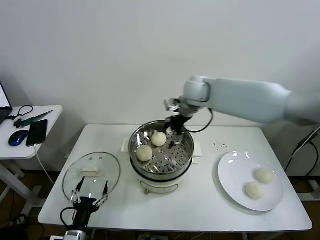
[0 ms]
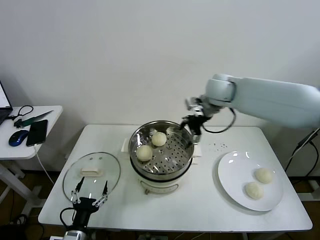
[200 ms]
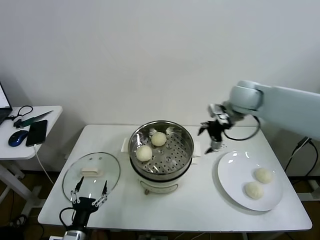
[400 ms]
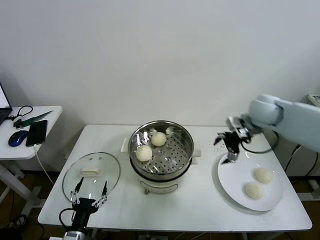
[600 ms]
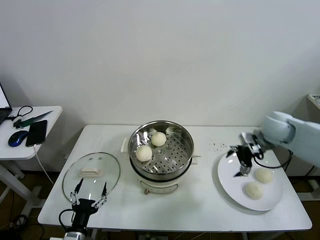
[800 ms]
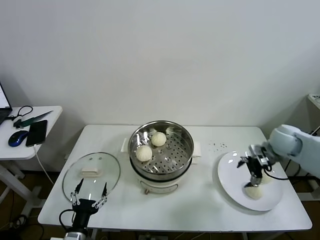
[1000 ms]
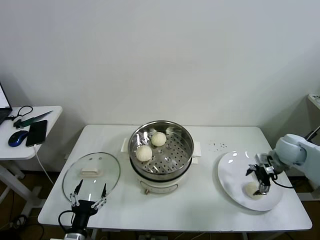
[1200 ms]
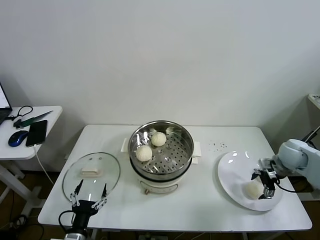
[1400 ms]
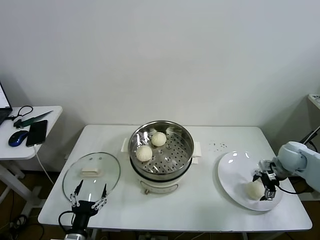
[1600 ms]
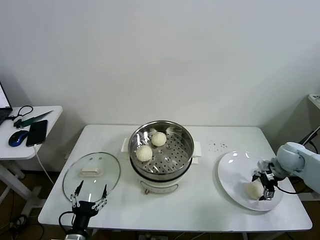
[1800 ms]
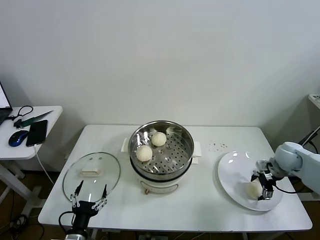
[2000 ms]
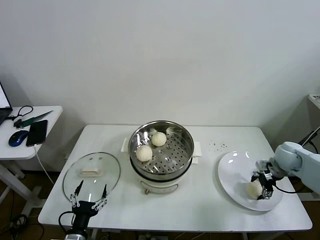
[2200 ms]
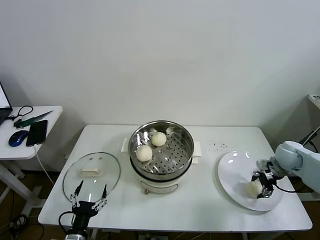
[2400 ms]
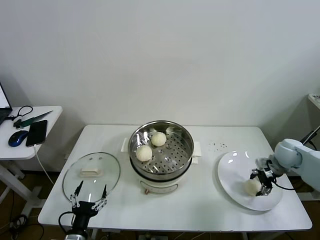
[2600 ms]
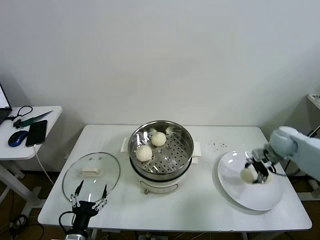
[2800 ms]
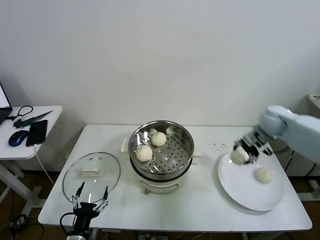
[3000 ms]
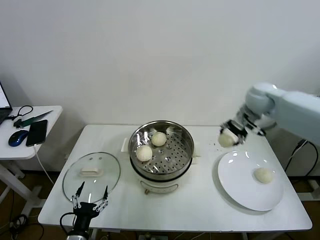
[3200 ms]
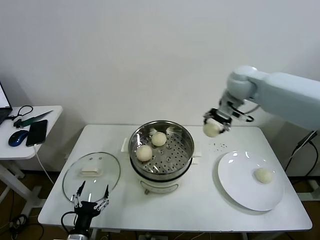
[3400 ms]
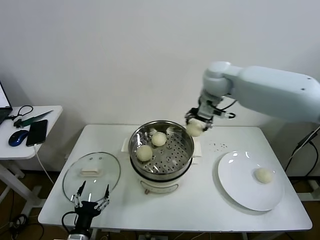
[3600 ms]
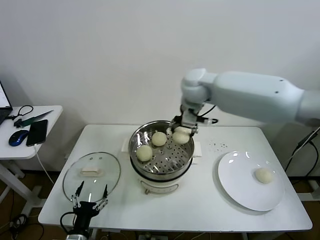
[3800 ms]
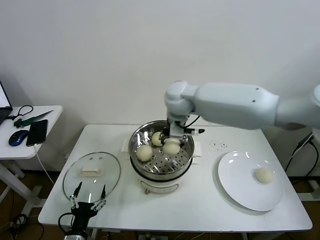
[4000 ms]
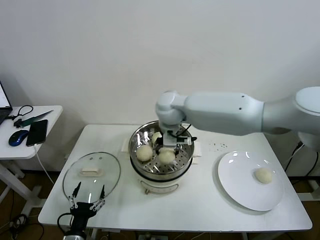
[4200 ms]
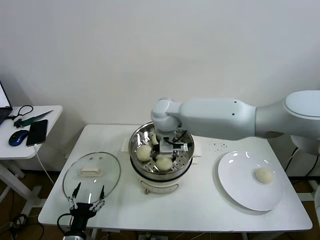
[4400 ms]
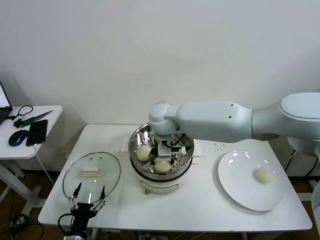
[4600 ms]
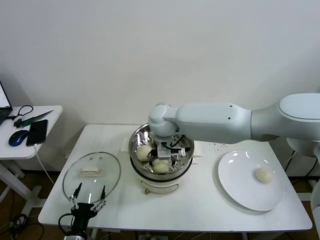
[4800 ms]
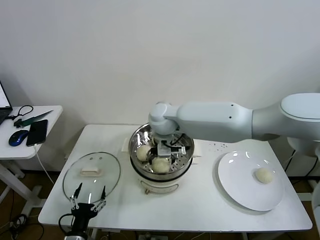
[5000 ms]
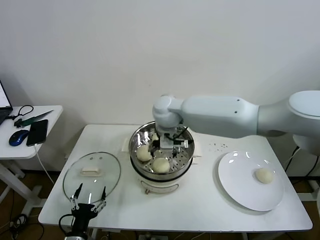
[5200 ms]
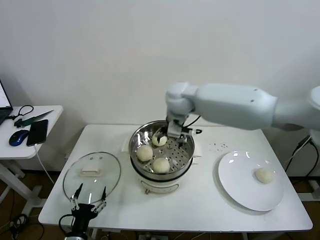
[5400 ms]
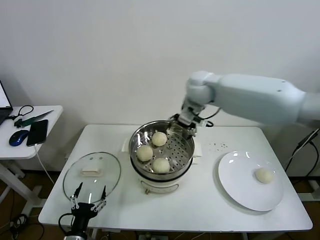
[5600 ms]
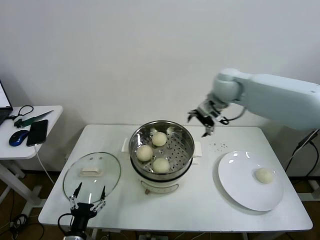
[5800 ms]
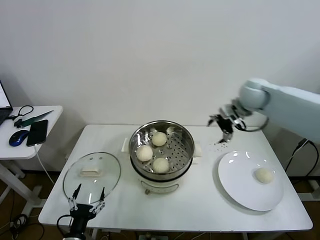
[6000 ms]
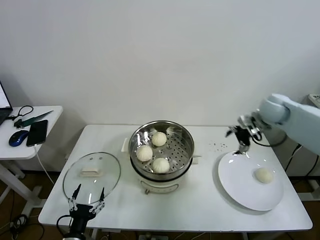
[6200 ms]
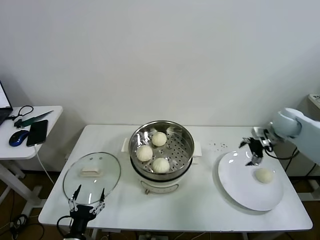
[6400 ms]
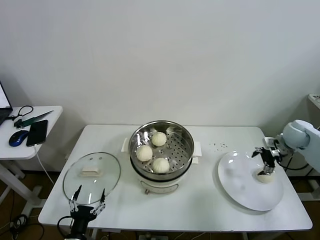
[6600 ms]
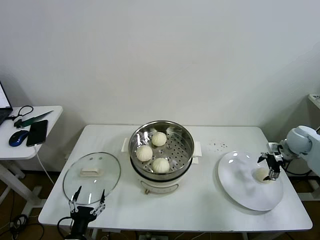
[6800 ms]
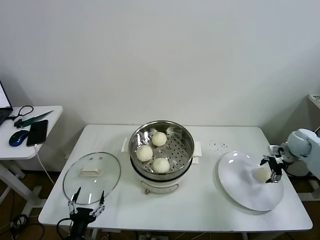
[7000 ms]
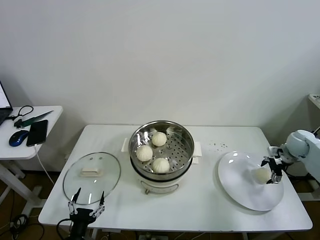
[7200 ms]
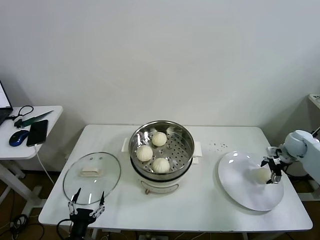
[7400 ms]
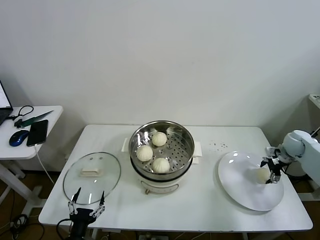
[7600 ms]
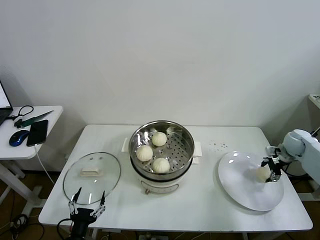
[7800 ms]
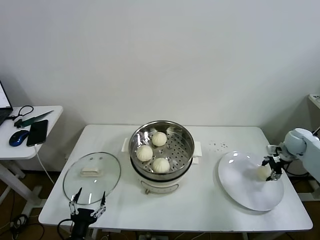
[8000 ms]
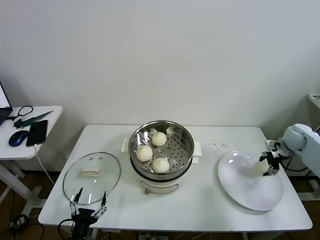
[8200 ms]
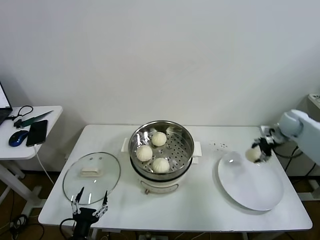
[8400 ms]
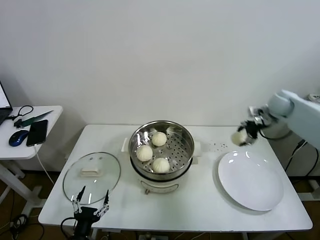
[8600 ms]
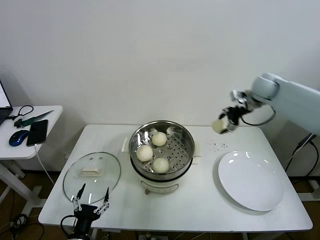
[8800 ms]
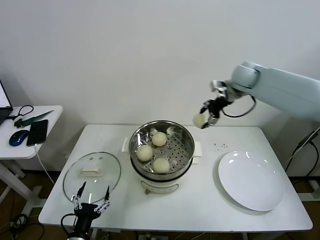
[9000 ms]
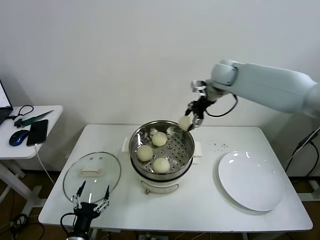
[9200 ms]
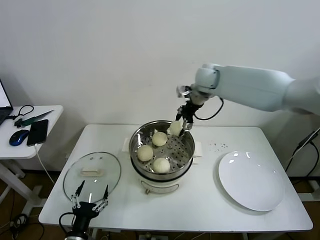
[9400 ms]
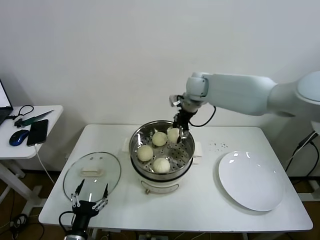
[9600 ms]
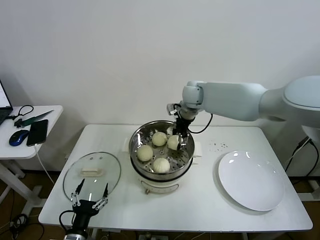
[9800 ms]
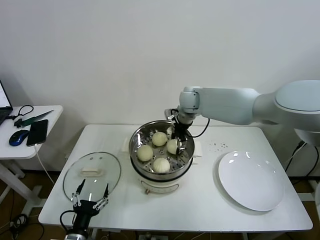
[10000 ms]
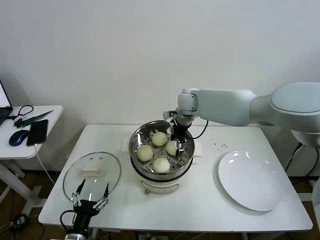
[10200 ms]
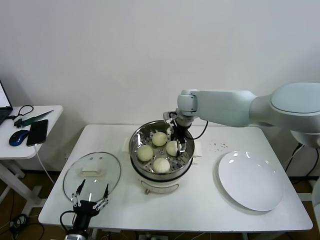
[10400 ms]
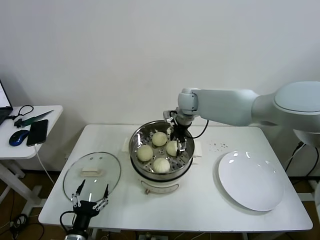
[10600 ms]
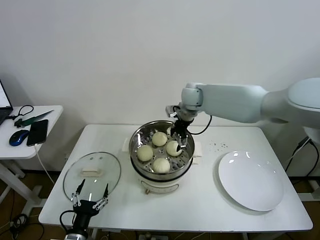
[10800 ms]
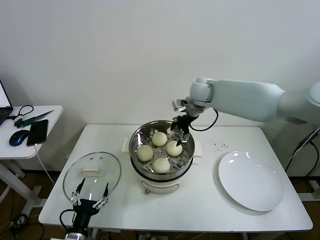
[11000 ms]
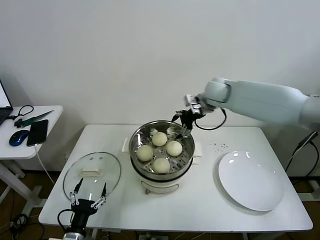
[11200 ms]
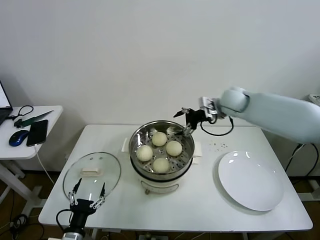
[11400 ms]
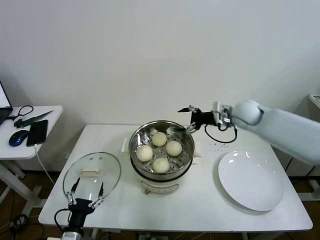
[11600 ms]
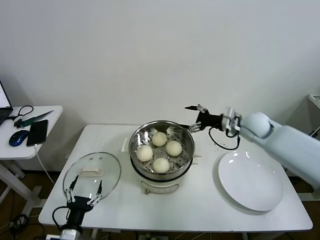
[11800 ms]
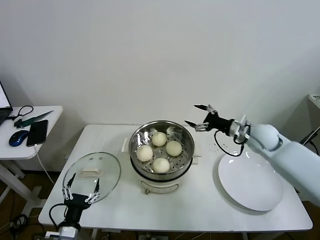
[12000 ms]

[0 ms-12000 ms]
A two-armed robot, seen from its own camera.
Task of the whole recording: take steamed baozi put them in steamer then cover it.
Step, 0 ms to 2200 ms: Grasp the baozi in the plate with right gripper.
Step, 2400 ms to 5000 ms: Place the baozi on the steamer with right gripper.
Step, 5200 ms to 7600 ms: Grasp the baozi in the plate with right gripper.
Step, 8000 ms to 10600 ms: Place the baozi on the steamer with right gripper.
0 ms to 1600 ms: The right gripper goes roughly 40 cm to the right and downward.
1600 ms to 3000 ms: The right gripper travels upward, to the left and forward by about 20 cm, and closes.
3000 ms to 4400 ms: The right gripper heads to the left, covering some 35 cm.
4400 ms to 6000 ms: The right gripper shifts roughly 30 cm to the right, and opens.
6000 ms to 7600 ms: The right gripper heads to the right and downward, covering roughly 25 cm.
7600 ms to 9000 ms: The right gripper shifts some 35 cm to the left, upward and forward, and closes its fingers.
9000 ms to 10400 ms: The right gripper moves to the left and downward, about 20 cm, and opens its fingers.
10400 ms to 12000 ms: The right gripper shifts some 25 cm to the right and backward.

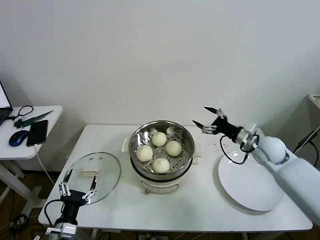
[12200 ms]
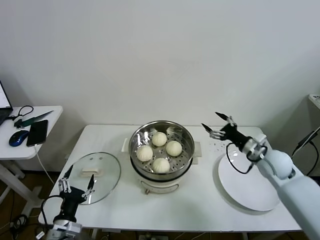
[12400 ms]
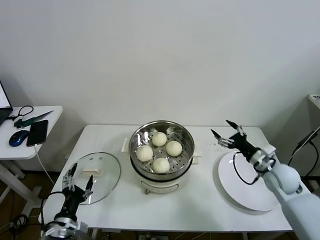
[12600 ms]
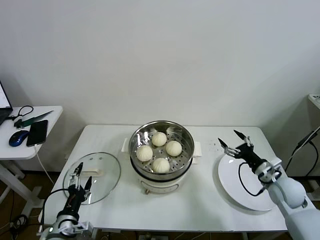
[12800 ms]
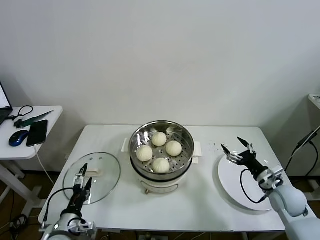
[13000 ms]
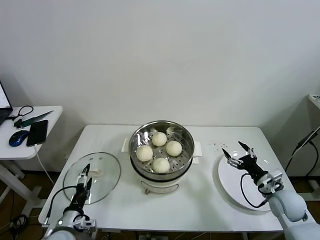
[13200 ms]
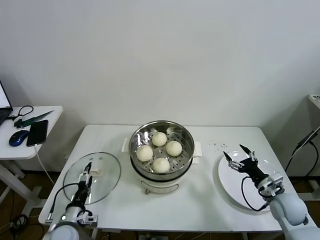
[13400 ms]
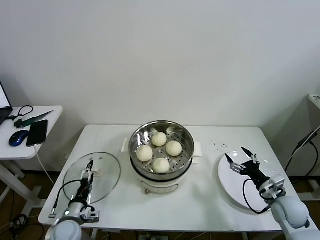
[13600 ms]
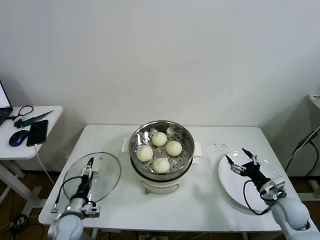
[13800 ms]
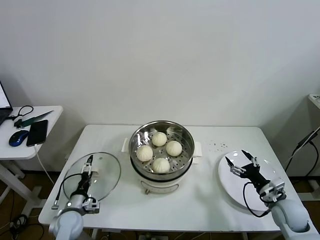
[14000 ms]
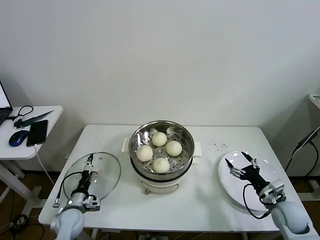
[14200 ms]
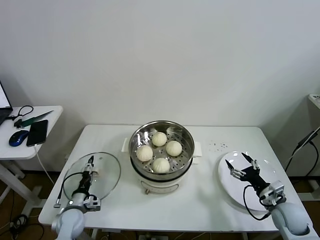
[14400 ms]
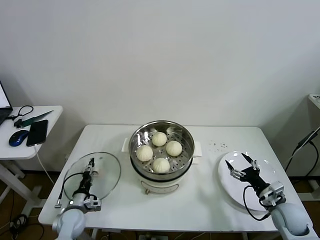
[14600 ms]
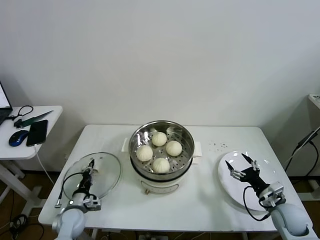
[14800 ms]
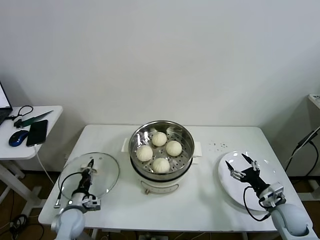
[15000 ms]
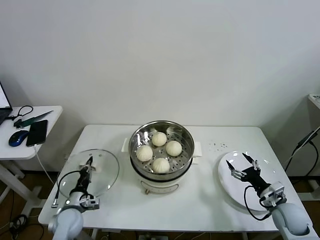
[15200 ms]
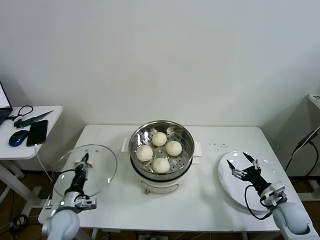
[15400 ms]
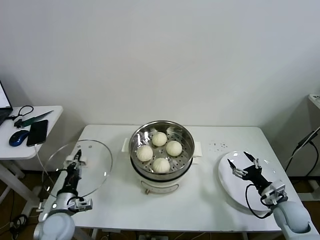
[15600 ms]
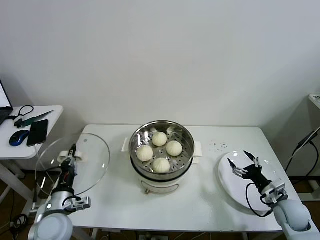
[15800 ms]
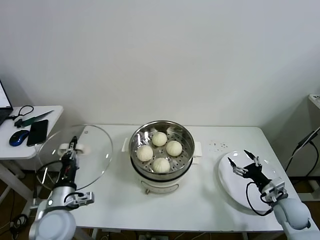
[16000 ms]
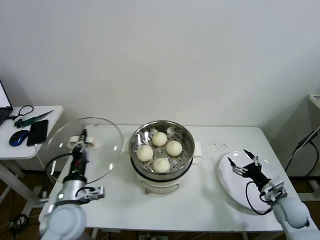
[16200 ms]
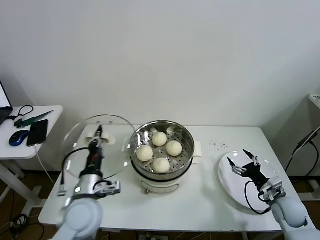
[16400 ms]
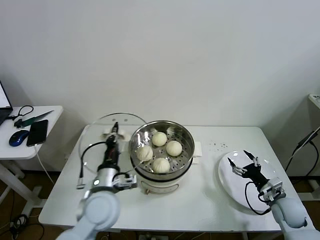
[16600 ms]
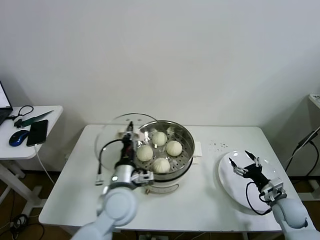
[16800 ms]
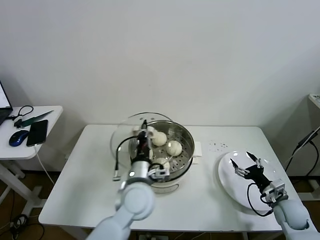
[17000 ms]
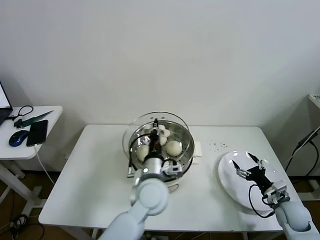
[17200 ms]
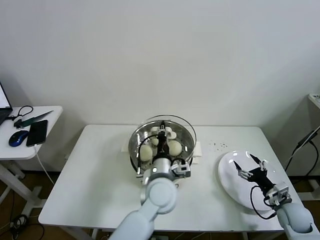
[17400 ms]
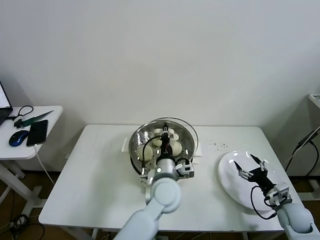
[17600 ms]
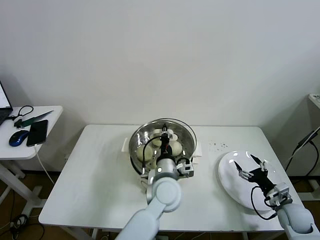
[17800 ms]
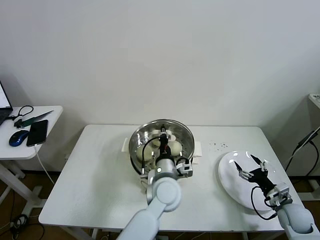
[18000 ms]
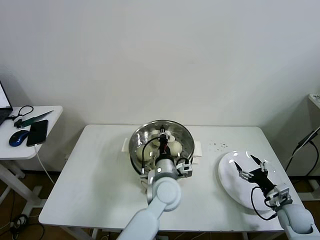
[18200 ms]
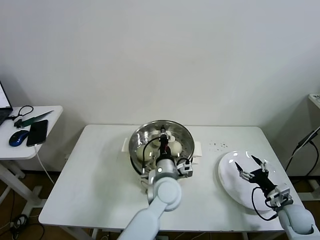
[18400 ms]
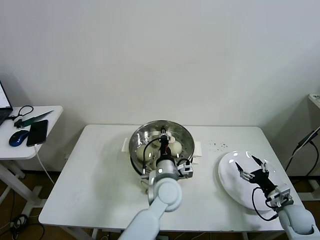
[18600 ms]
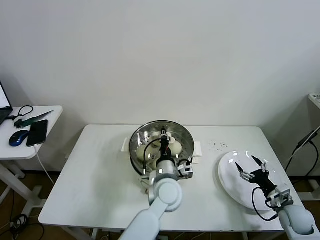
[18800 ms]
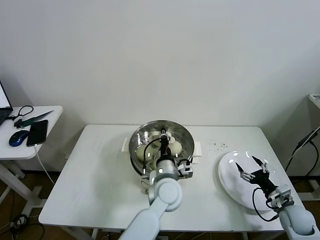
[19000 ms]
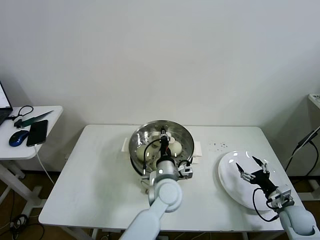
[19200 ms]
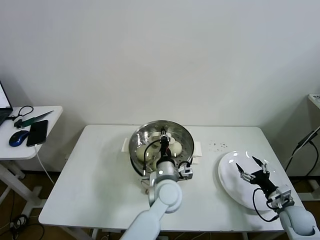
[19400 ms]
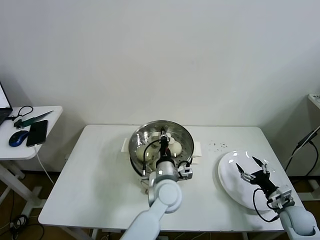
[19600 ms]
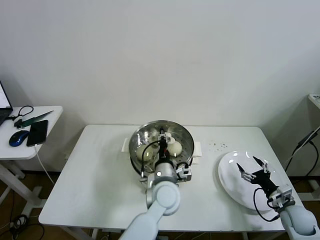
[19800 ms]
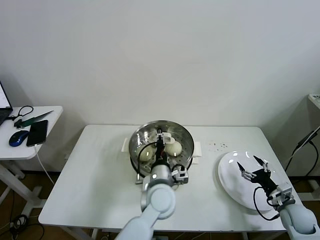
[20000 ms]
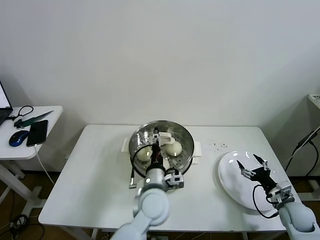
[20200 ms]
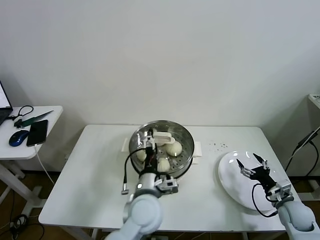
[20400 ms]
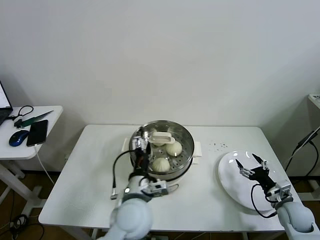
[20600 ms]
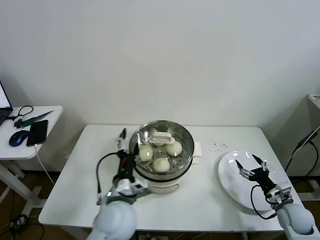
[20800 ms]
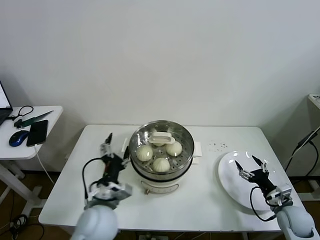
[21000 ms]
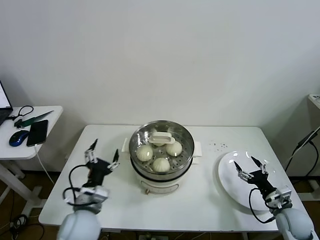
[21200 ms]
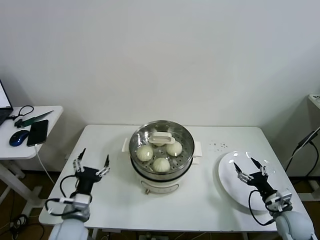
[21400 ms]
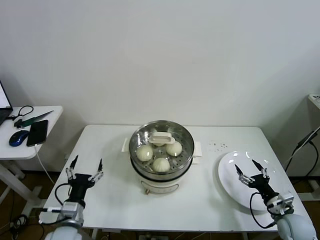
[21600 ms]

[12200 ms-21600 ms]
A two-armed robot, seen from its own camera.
Task of the whole recording: take steamed baozi put them in steamer then cover it.
Step, 12200 ms to 14800 ms: Grasp the pot lid with left gripper.
Step, 15000 ms to 20400 ms: Place the pot lid on the steamer with left gripper.
12200 ms to 13800 ms: The left gripper heads forward and downward, covering approximately 10 cm. Meanwhile the right gripper is displaced backward and downward by some 20 cm.
13800 ms to 15400 ms: The left gripper closes its fingers.
15400 ms to 17000 ms: The left gripper moves to the right and upward, approximately 30 cm.
17000 ms to 18400 ms: The left gripper travels to the right by some 10 cm.
18400 ms to 20000 ms: The left gripper opens its fingers.
20000 ms to 21600 ms: The left gripper heads to the left, covering some 30 cm, and opens up.
